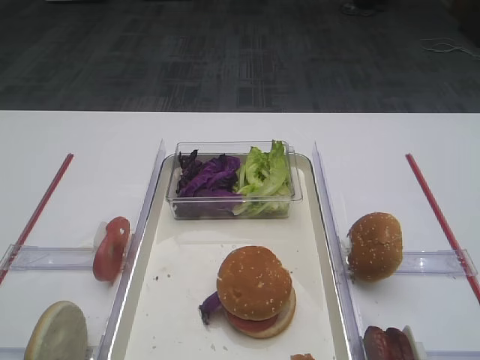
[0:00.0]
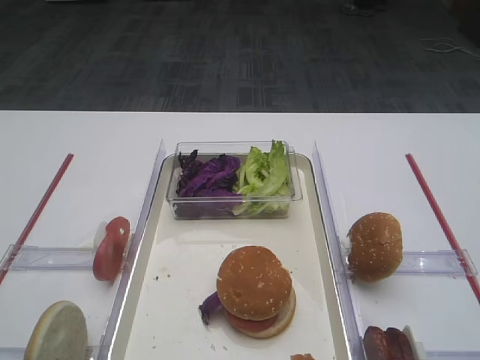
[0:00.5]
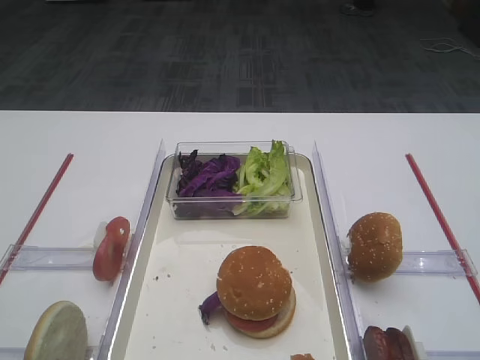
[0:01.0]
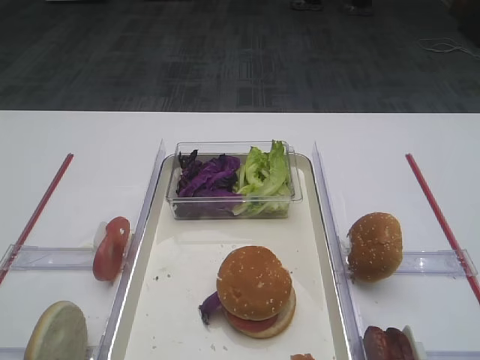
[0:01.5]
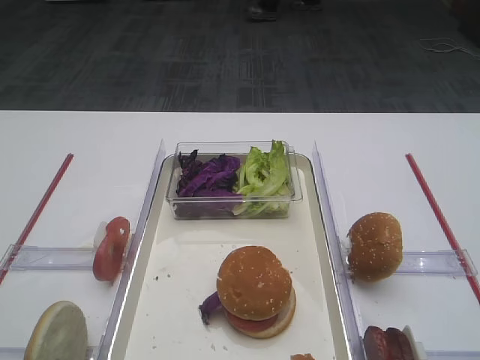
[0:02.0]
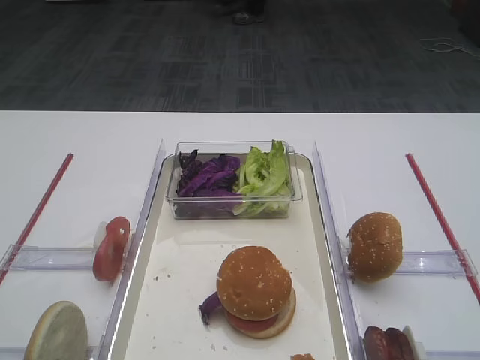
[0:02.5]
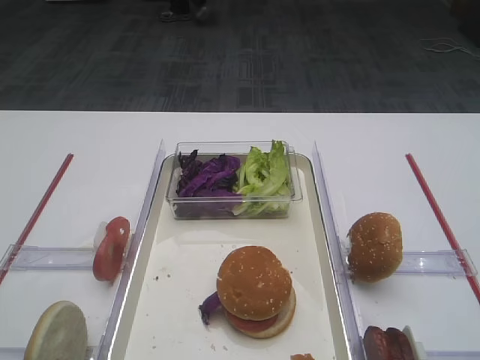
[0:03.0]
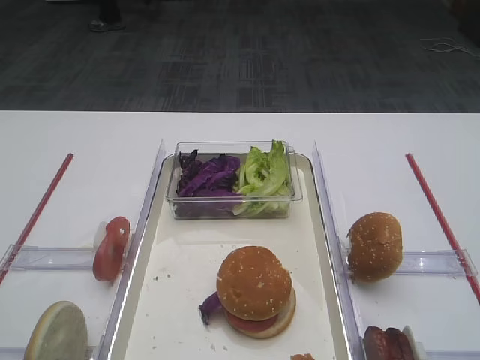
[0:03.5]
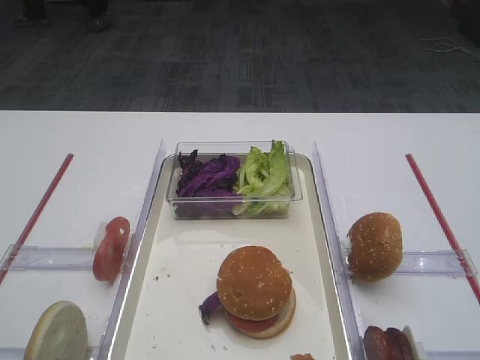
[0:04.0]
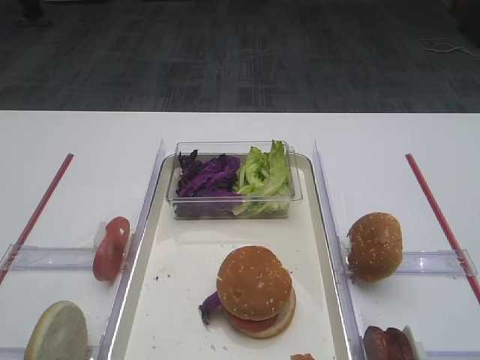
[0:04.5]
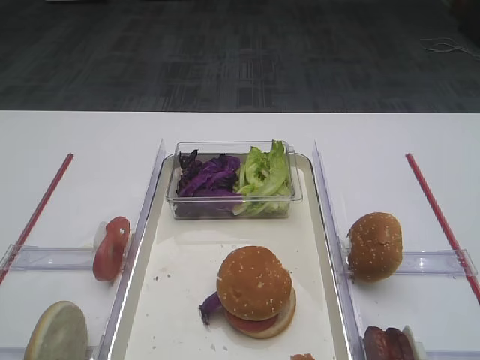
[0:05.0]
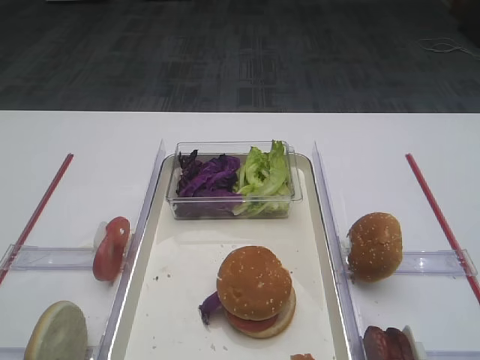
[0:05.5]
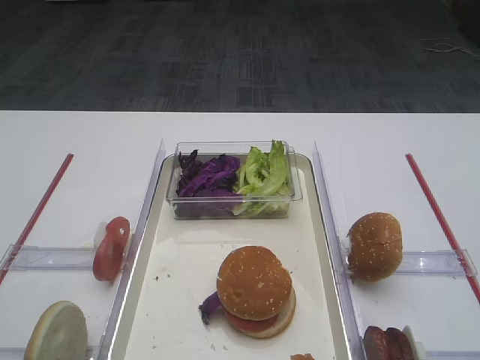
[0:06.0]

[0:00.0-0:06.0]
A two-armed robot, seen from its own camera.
0:02.0 to 0:06.0: Neither gripper changes place.

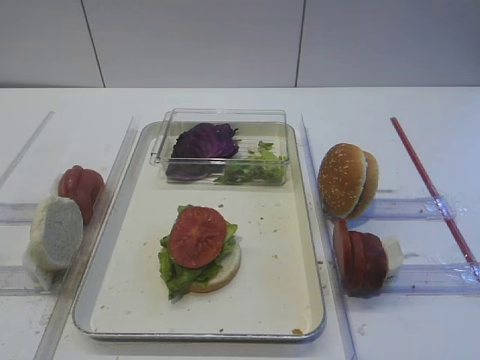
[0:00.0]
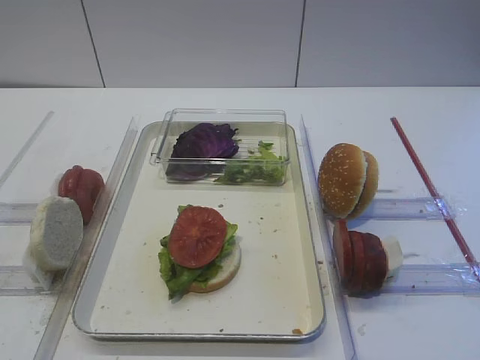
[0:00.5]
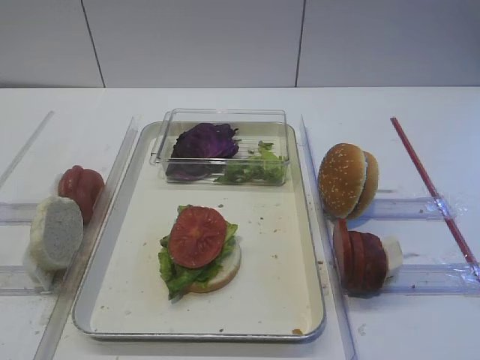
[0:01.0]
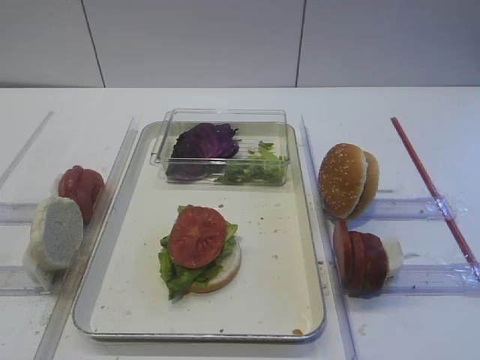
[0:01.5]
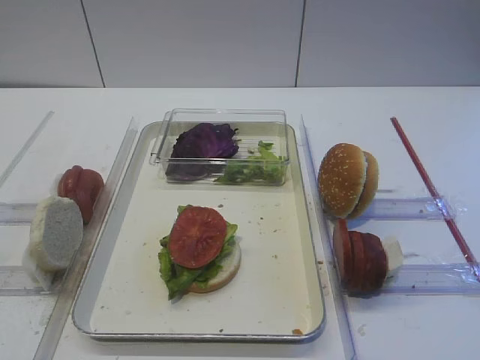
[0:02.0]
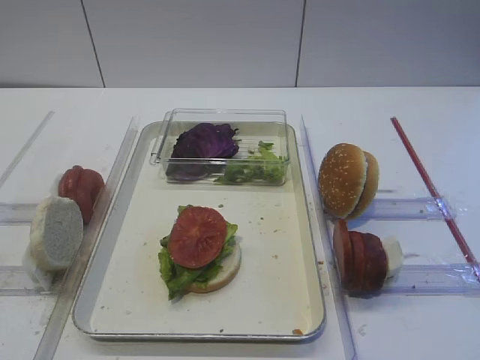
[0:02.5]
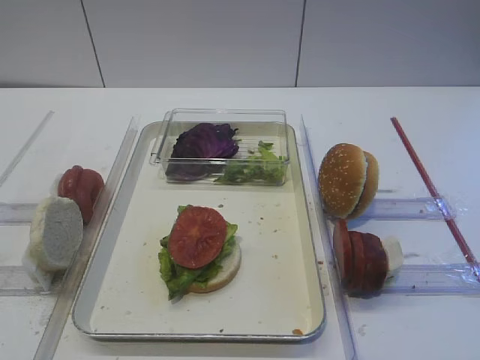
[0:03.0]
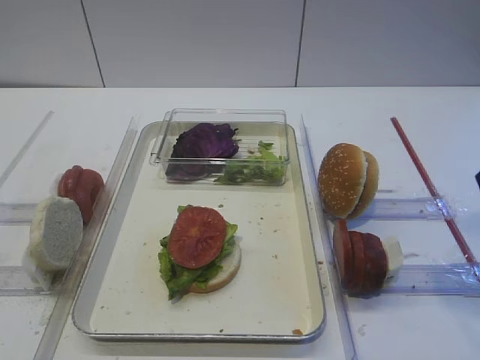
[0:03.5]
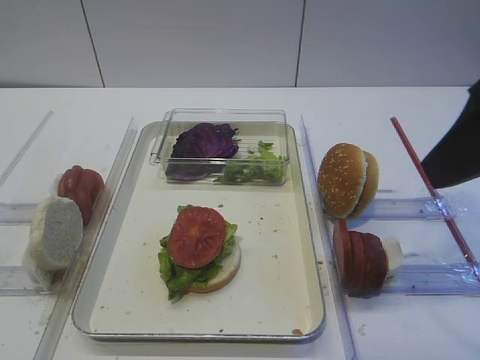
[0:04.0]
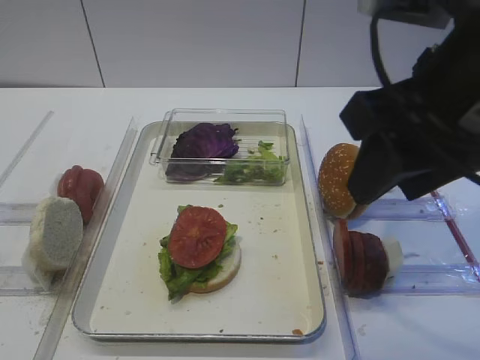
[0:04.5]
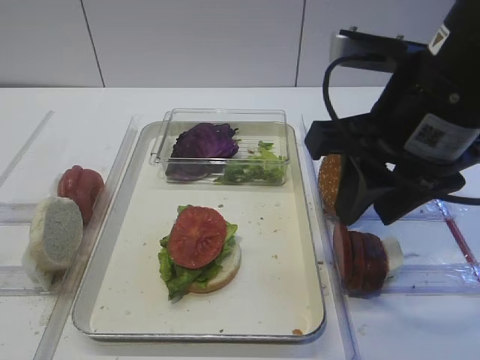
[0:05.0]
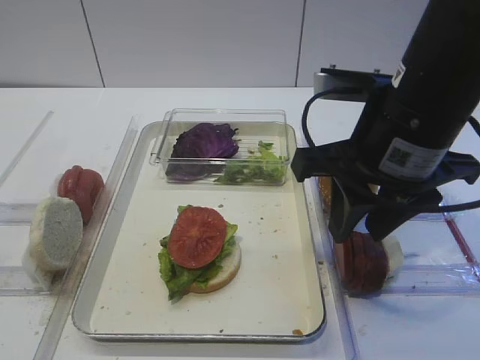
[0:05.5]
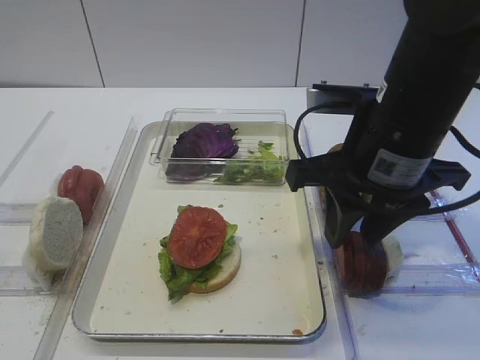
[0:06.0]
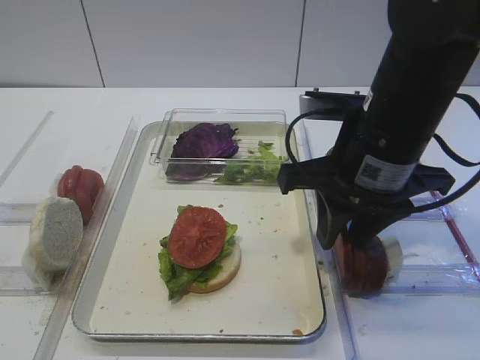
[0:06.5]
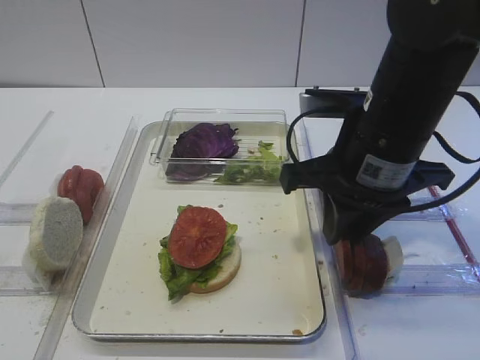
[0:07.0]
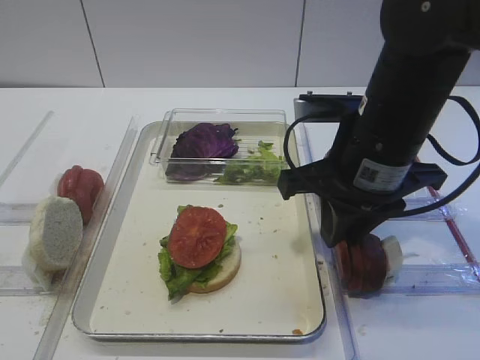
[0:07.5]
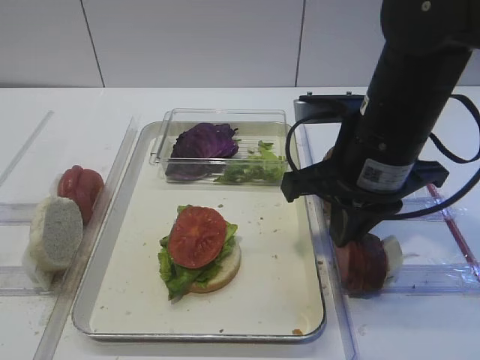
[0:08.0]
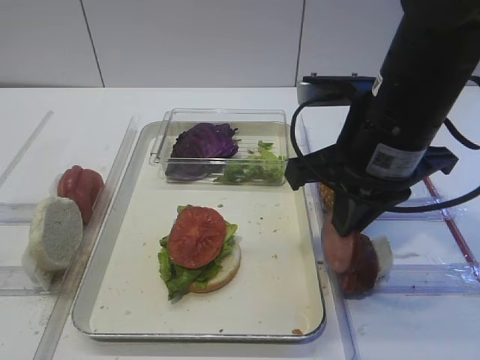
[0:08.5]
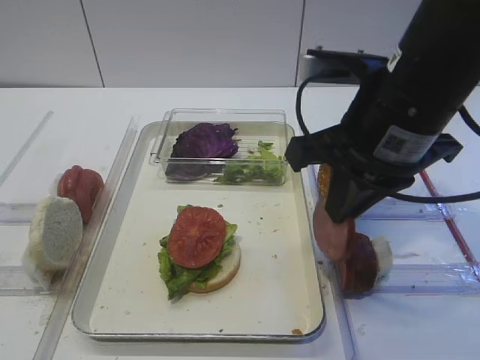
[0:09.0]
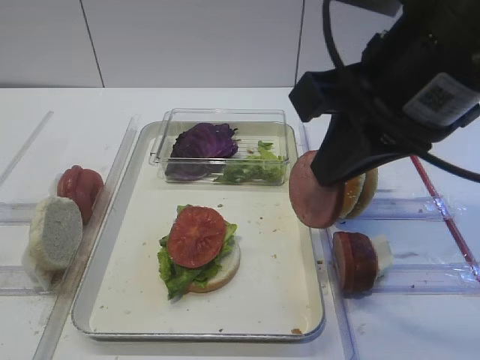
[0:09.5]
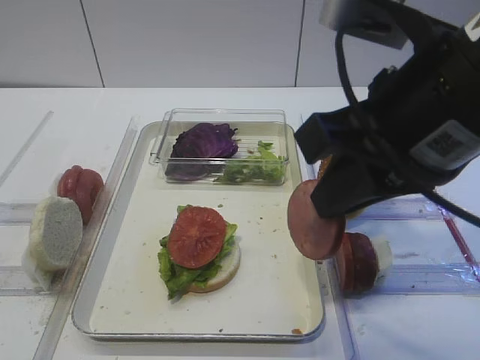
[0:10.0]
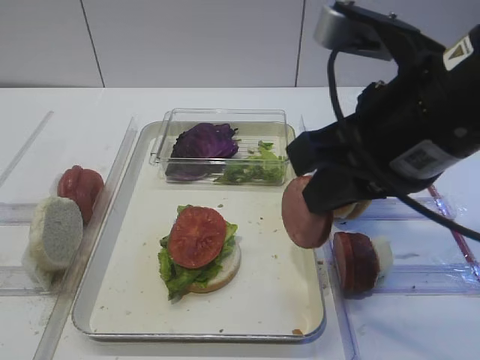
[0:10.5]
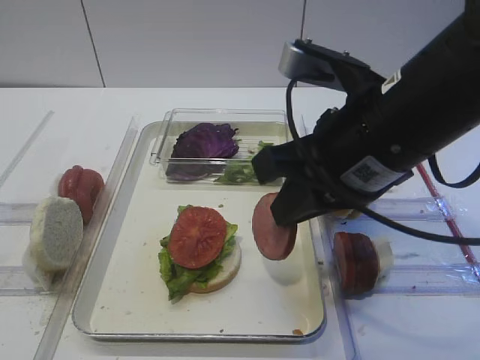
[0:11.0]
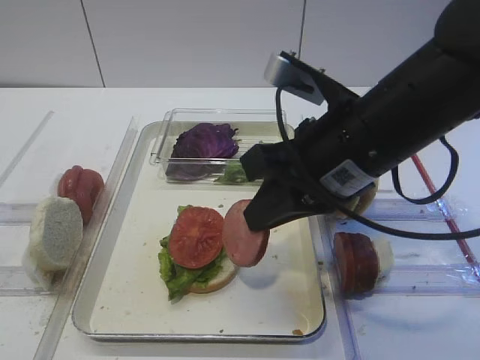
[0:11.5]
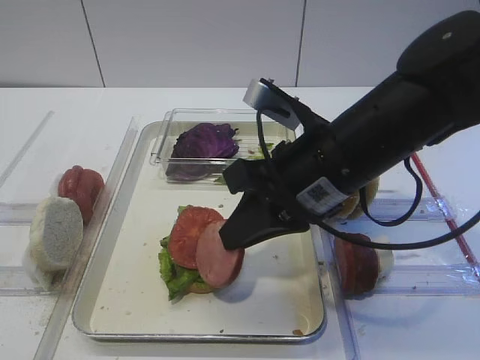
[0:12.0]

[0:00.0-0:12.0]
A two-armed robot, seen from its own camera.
Step, 0:00.0 to 0:09.0: Pick up the cutlet with the right gripper.
0:02.0 to 0:04.0: The right gripper heads forward, to the left and upward, covering roughly 20 cm.
0:04.0 to 0:06.0: The right gripper shifts about 15 cm downward, forward and to the left.
0:06.0 to 0:08.0: The right gripper closes up.
0:08.0 to 0:10.0: The right gripper travels upward and backward by some 10 cm.
0:10.0 to 0:12.0: The right gripper is displaced downward and forward by roughly 10 cm.

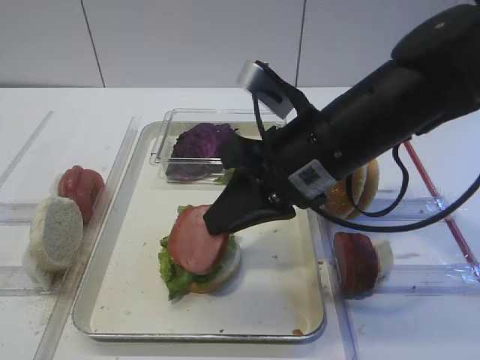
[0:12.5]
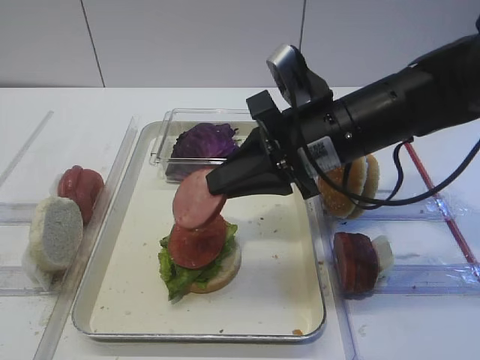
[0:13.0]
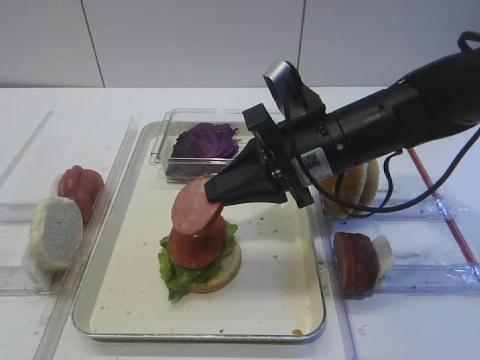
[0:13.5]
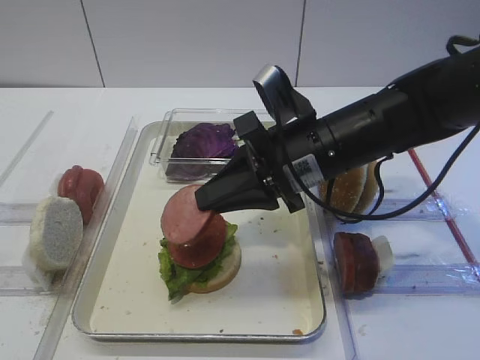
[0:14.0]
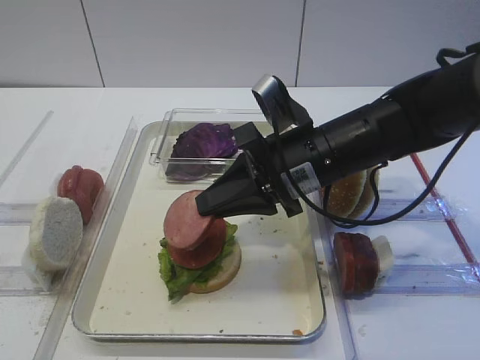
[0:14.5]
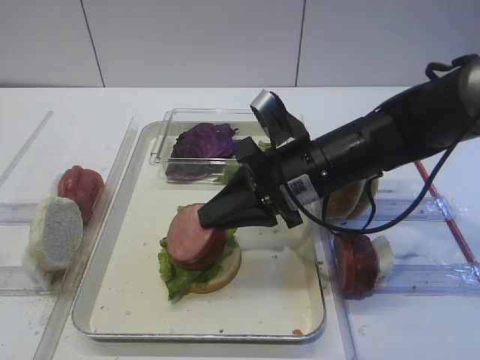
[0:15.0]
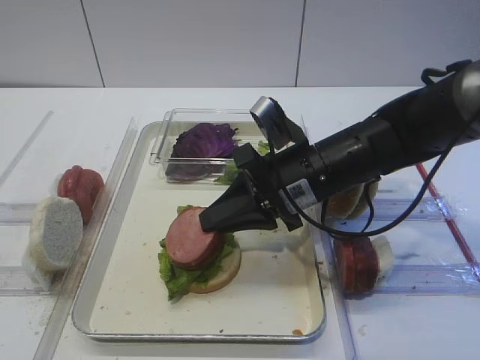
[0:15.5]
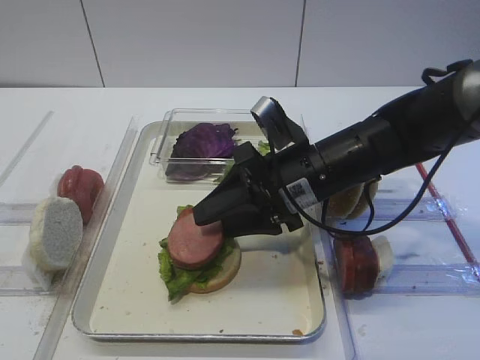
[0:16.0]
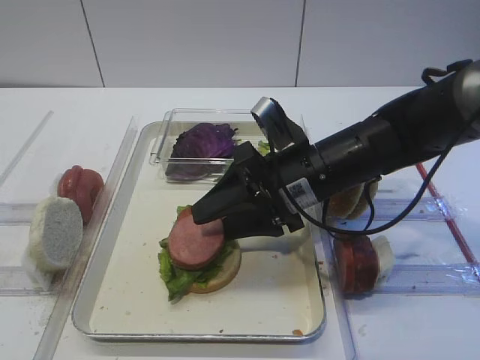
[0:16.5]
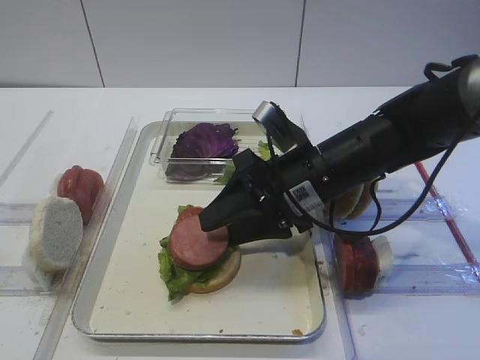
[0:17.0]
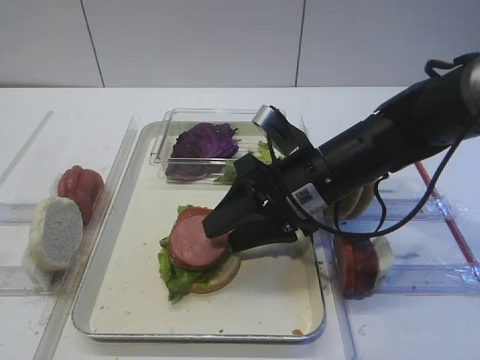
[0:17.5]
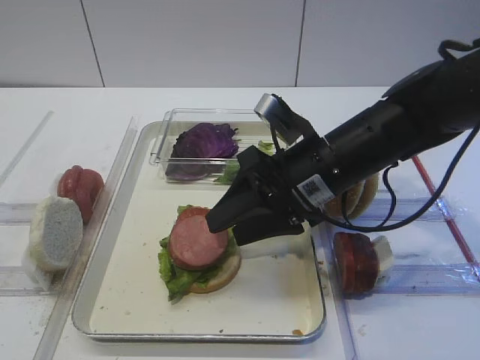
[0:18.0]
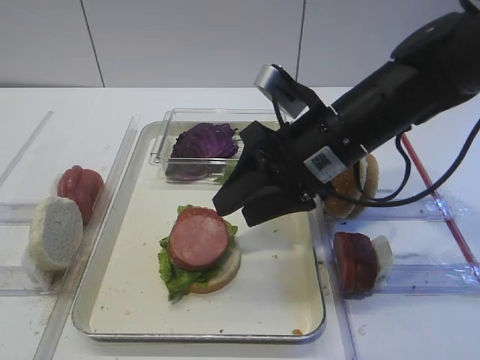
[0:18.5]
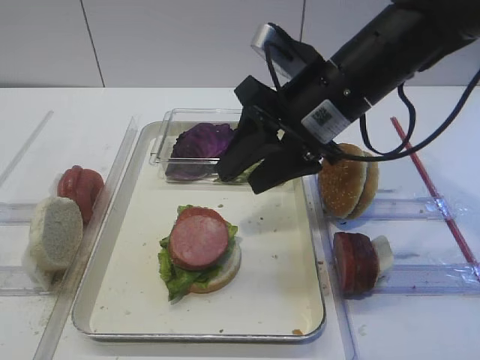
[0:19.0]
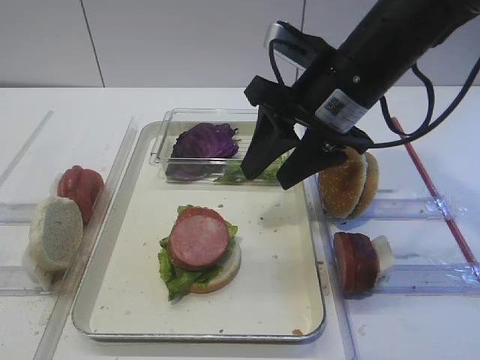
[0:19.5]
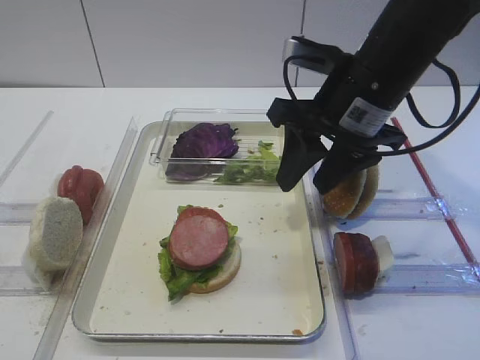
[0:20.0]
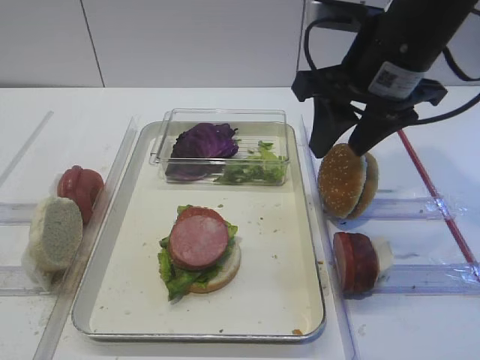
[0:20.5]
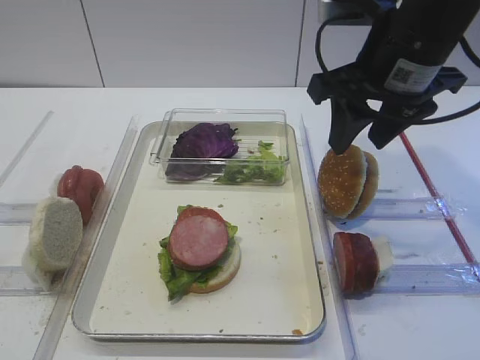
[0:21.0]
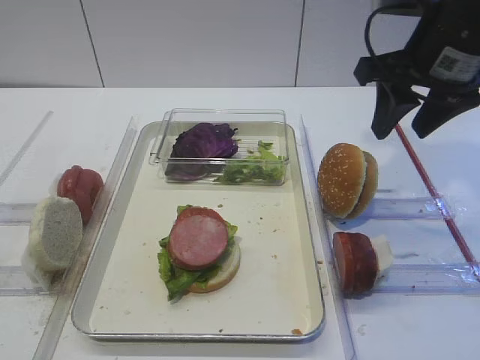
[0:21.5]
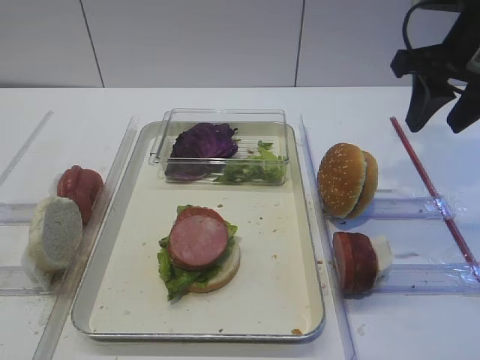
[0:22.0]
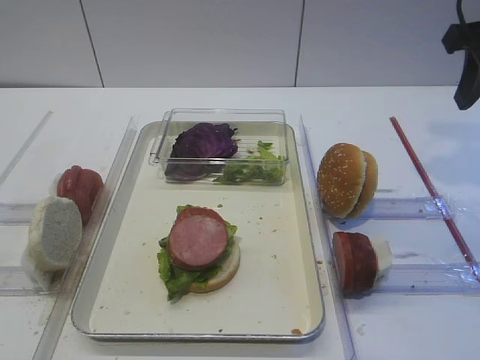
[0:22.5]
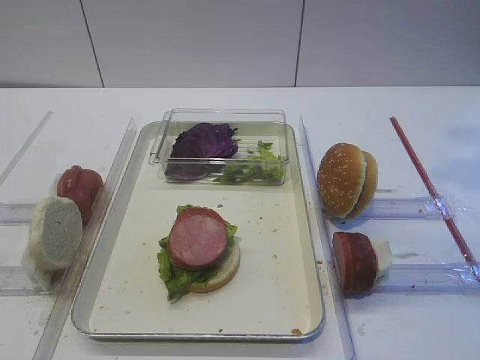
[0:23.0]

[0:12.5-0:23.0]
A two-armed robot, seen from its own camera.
Step, 0:12.5 to 0:18.5: Place the cutlet on the tomato slice with the right gripper.
0:12.5 to 0:14.5: The right gripper changes place by about 5 cm.
0:14.5 to 0:16.5: The right gripper opens.
0:16.5 to 0:19.0: The right gripper heads upward, covering roughly 10 cm.
0:19.0 to 0:21.0: The right gripper goes roughly 5 cm to the right.
0:21.0 to 0:23.0: The right gripper travels to the right and upward by some 15 cm.
